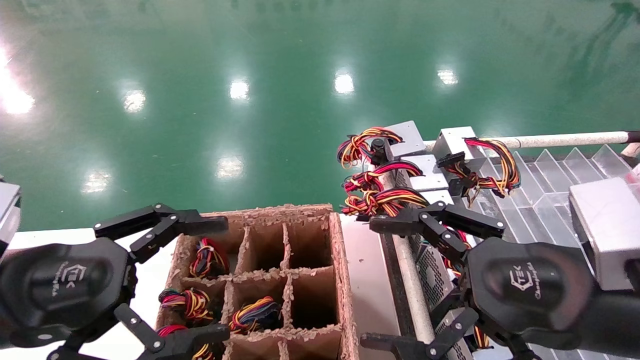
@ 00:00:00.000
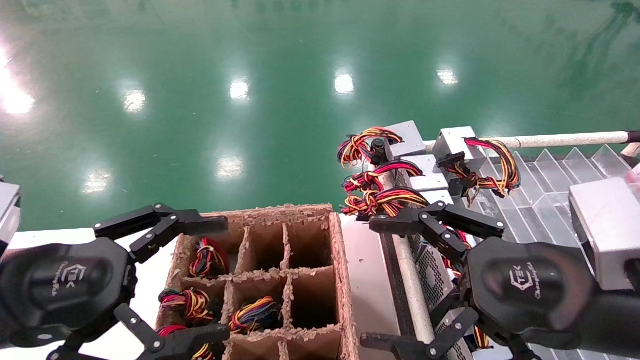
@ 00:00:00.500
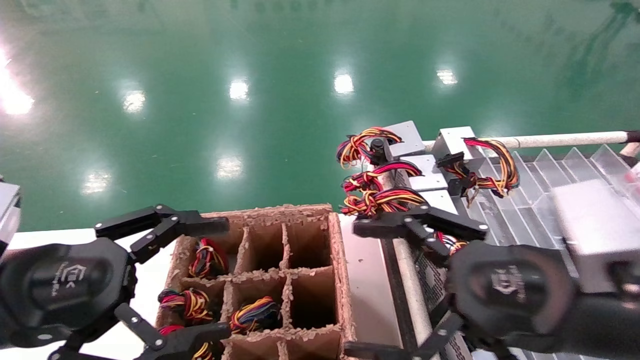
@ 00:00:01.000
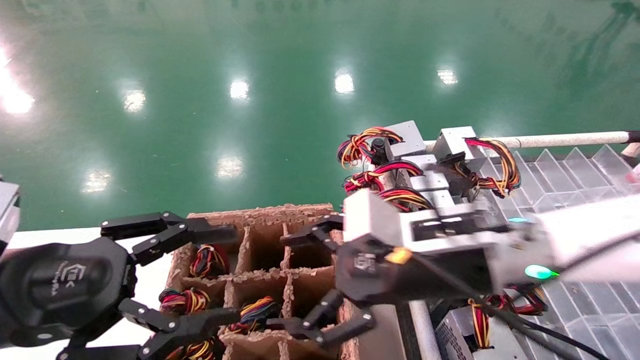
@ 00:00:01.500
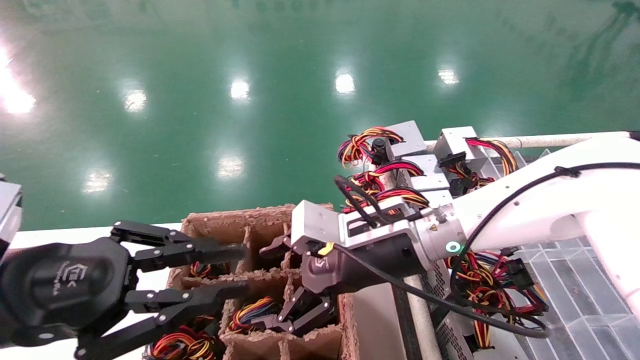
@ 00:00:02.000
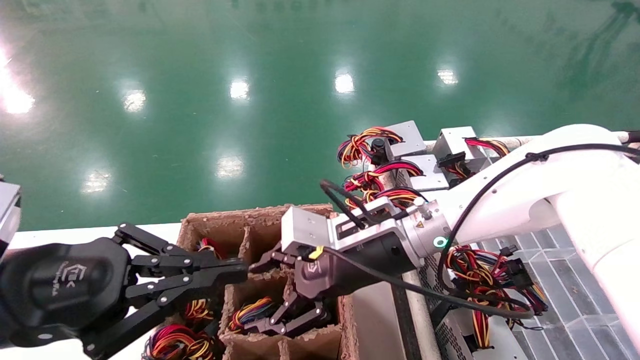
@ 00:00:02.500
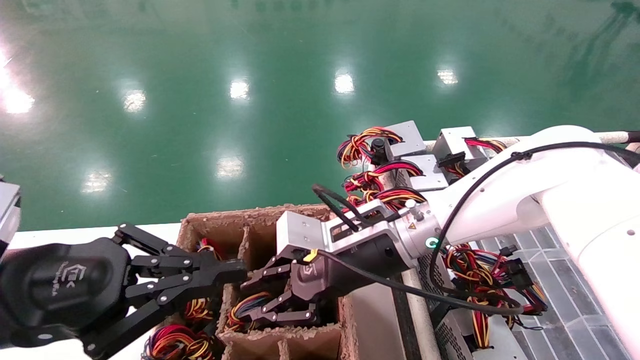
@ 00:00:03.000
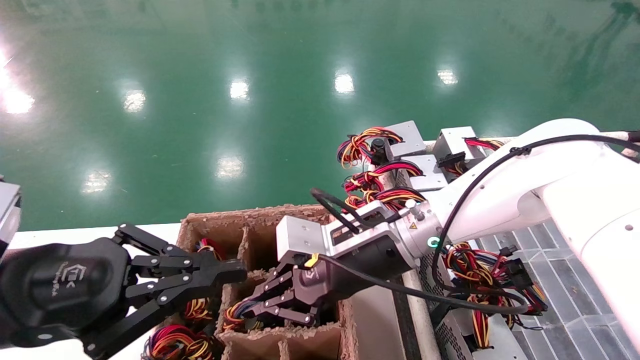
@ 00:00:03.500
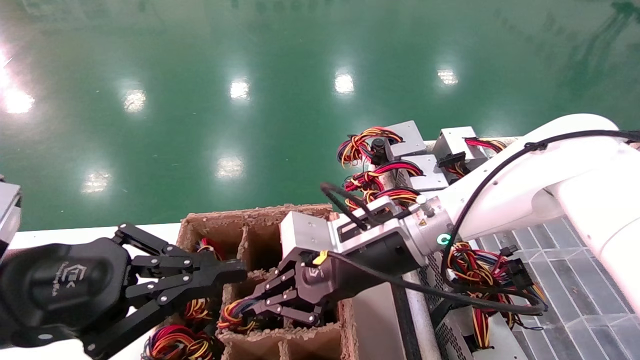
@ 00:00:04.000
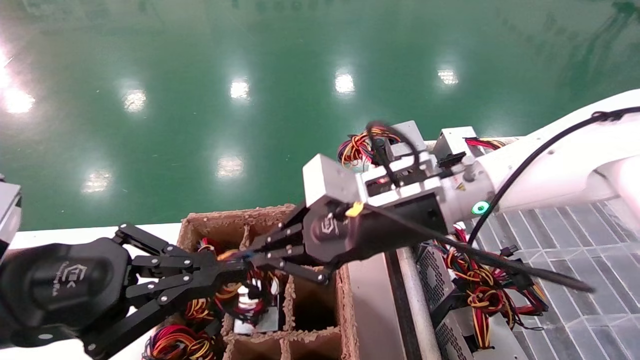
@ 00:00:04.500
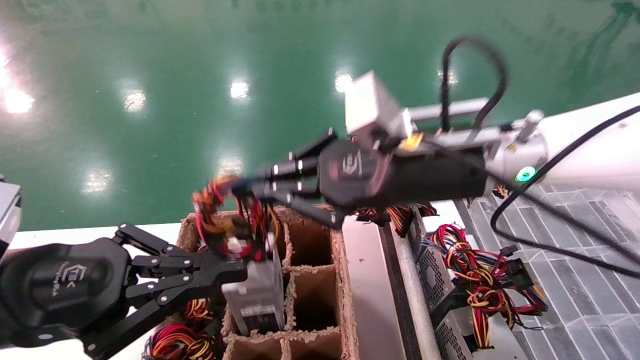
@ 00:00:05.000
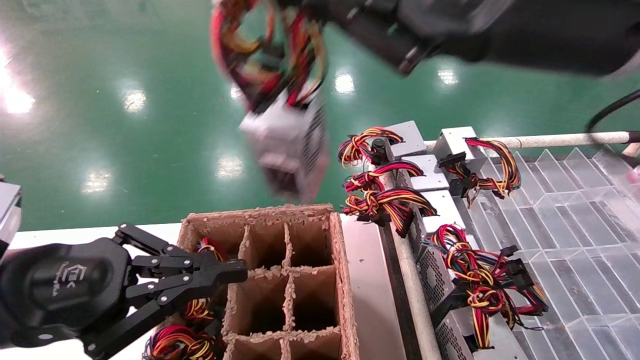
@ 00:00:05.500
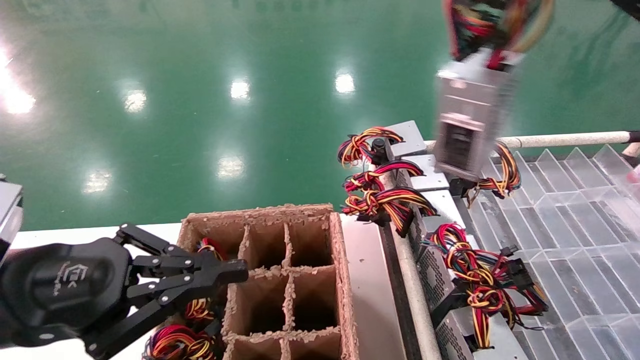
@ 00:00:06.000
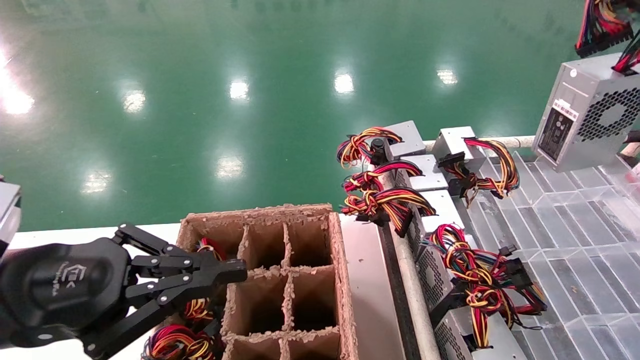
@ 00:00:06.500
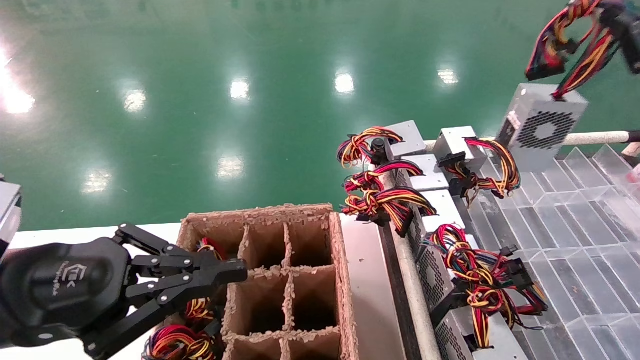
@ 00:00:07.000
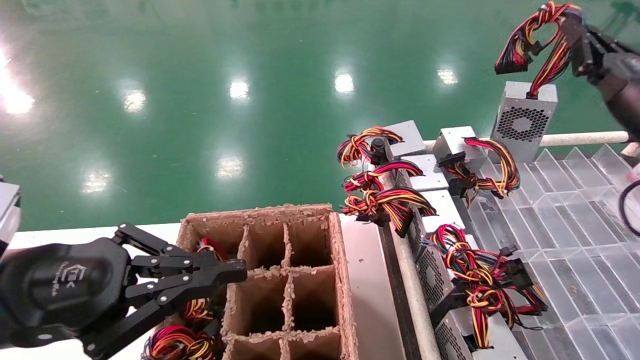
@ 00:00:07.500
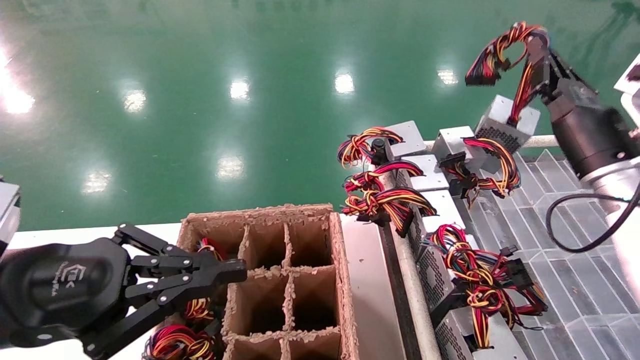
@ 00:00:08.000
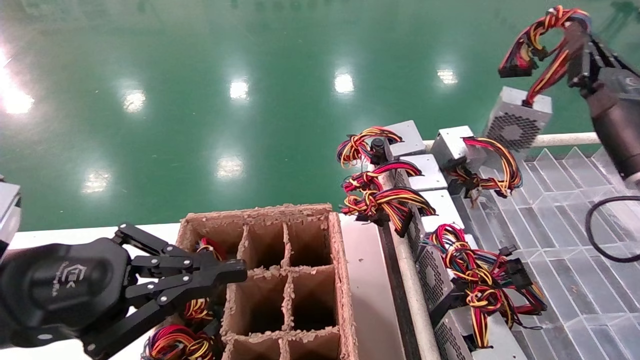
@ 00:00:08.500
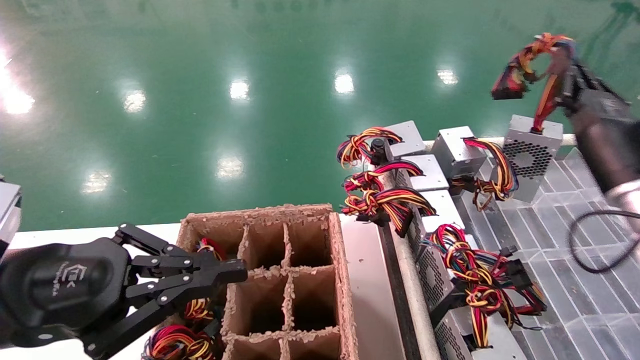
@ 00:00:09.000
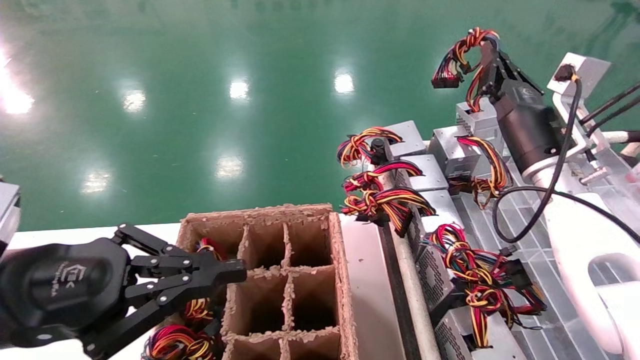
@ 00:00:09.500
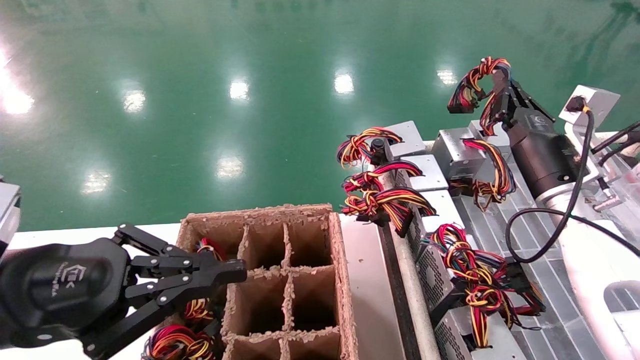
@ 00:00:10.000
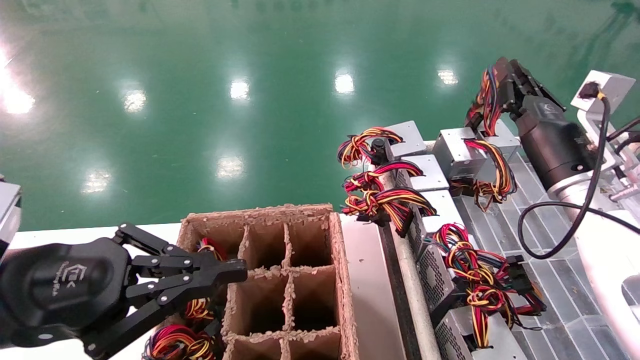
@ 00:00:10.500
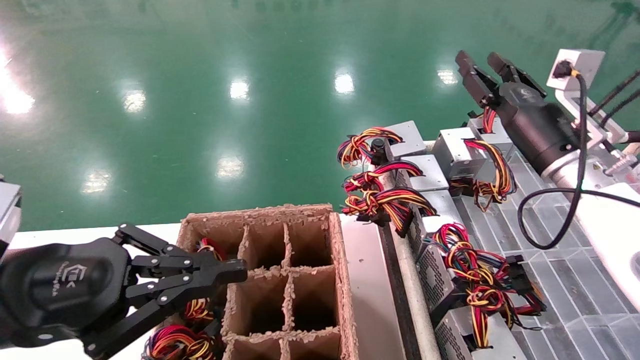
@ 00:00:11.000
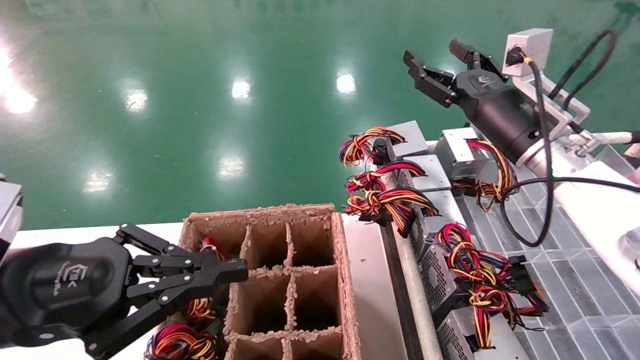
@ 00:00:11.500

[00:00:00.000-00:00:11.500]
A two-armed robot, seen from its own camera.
Step, 00:00:01.500 to 00:00:03.000: Grab the main unit power supply from the containment box.
Step, 00:00:03.500 to 00:00:10.000: Place the main unit power supply in the designated area.
00:00:00.000 to 00:00:02.000: The left gripper closes; the right gripper travels to the left and forward by about 20 cm.
00:00:02.000 to 00:00:04.000: The right gripper closes up.
00:00:04.000 to 00:00:06.000: The right gripper shifts about 35 cm to the right, upward and backward.
00:00:06.000 to 00:00:07.500: The right gripper goes about 20 cm forward, downward and to the right.
00:00:07.500 to 00:00:09.500: The right gripper shifts some 15 cm to the left, downward and forward.
00:00:09.500 to 00:00:11.500: The right gripper shifts by about 5 cm, and opens.

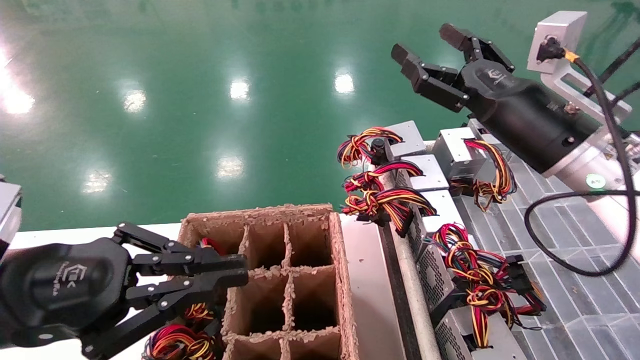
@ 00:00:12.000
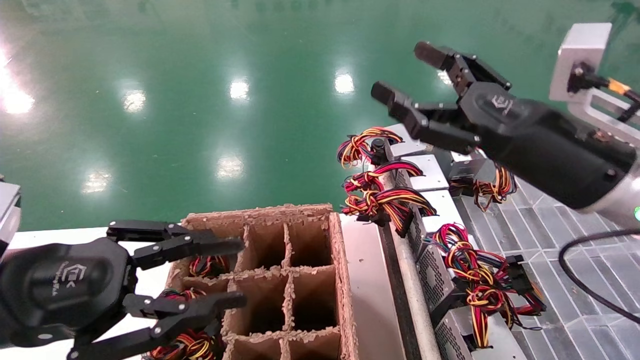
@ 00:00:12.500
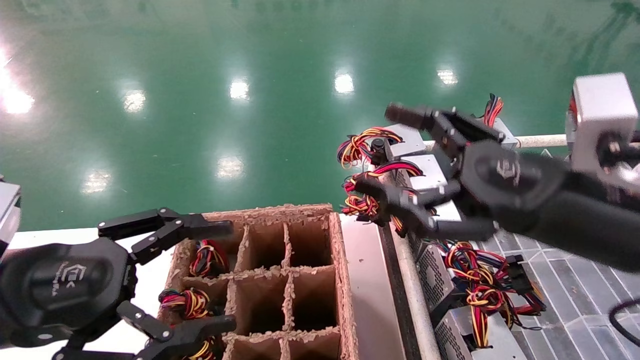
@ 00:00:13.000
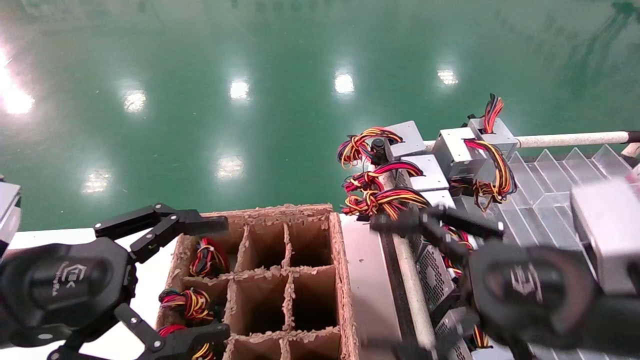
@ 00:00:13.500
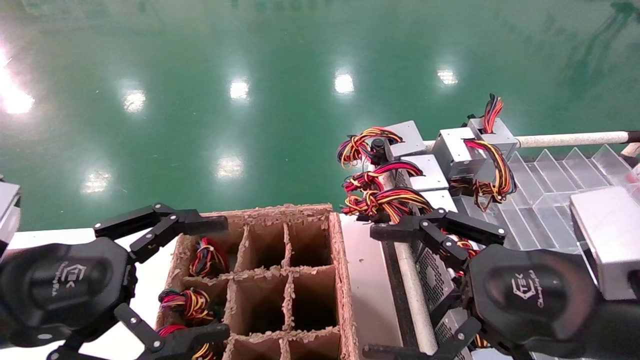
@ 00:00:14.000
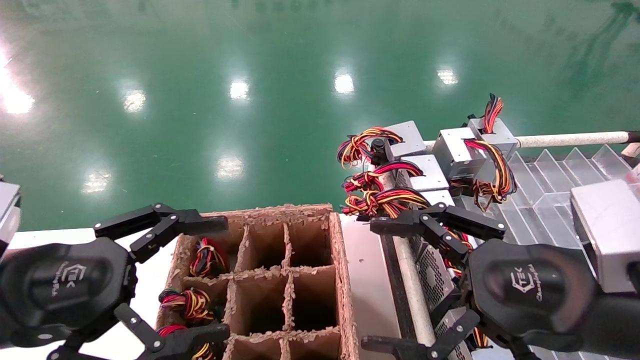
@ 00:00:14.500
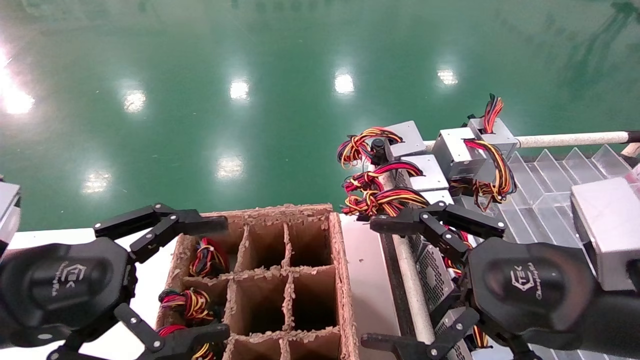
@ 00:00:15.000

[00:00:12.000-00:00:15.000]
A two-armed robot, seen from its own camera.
00:00:12.000 to 00:00:13.500: The left gripper opens. Meanwhile the right gripper shifts approximately 15 cm backward and downward.
00:00:13.500 to 00:00:15.000: The two grippers keep their place.
